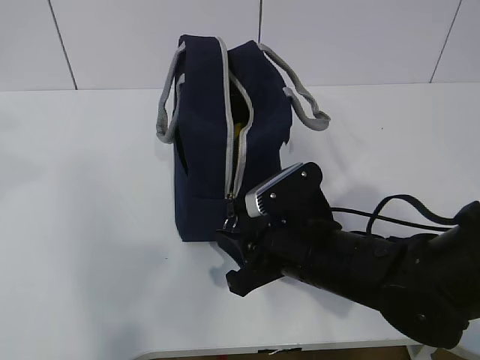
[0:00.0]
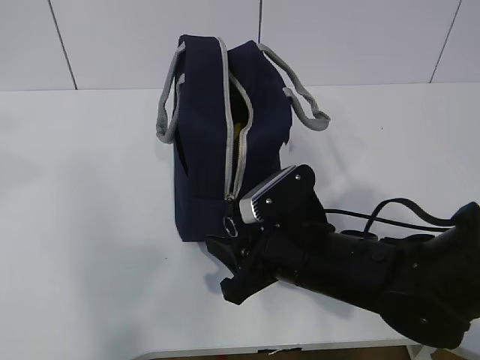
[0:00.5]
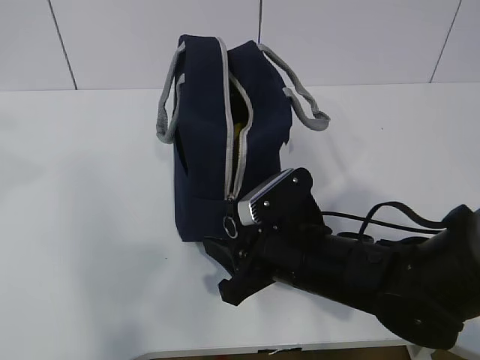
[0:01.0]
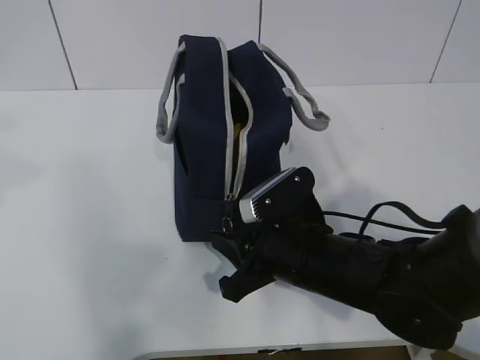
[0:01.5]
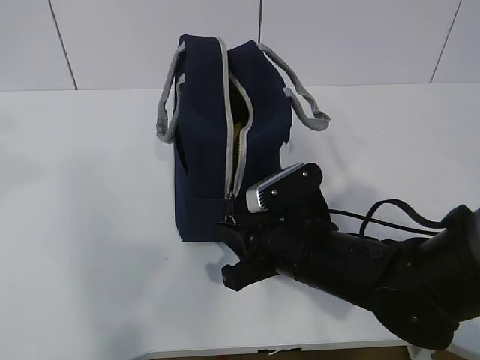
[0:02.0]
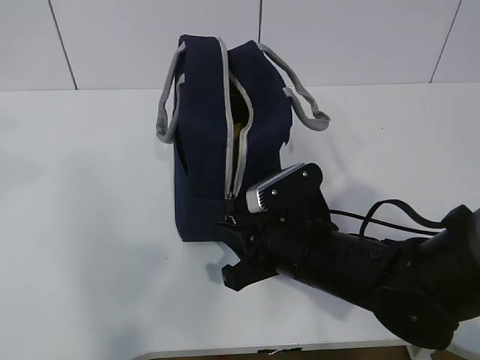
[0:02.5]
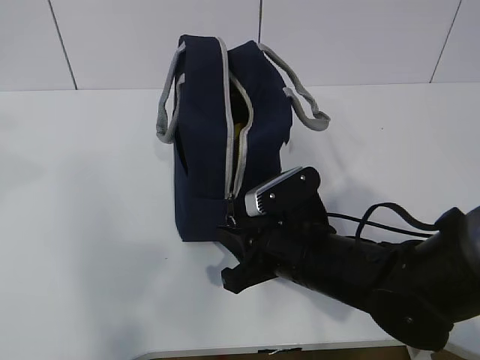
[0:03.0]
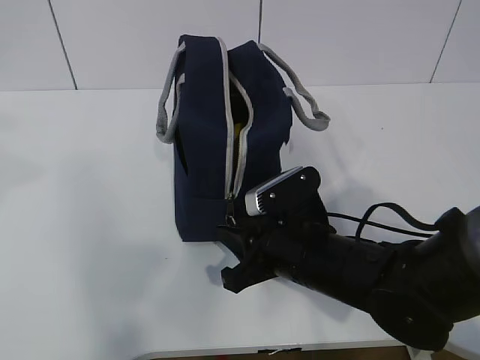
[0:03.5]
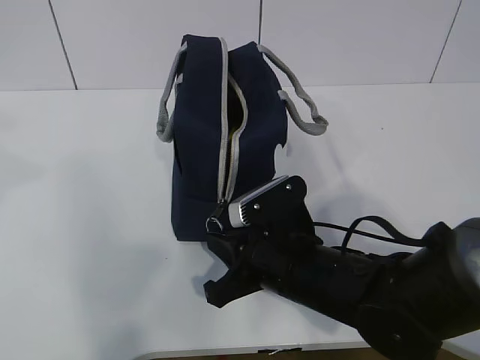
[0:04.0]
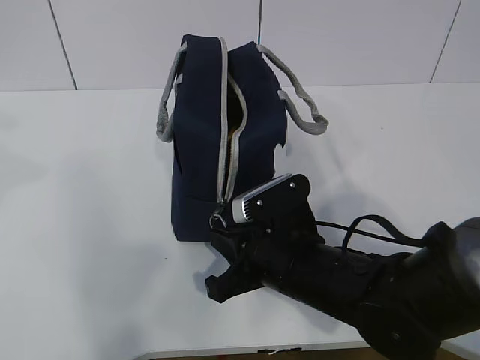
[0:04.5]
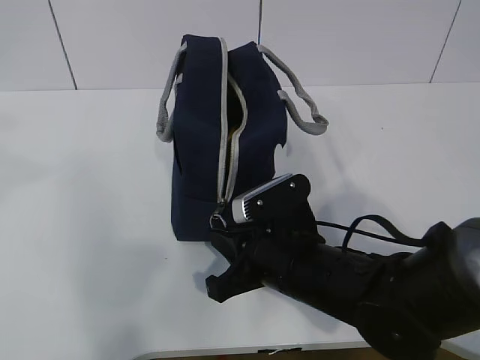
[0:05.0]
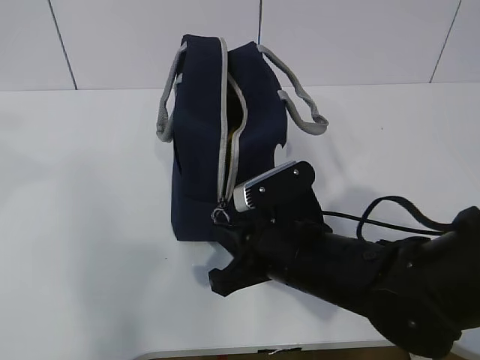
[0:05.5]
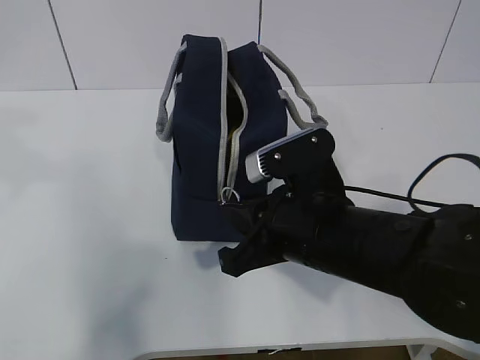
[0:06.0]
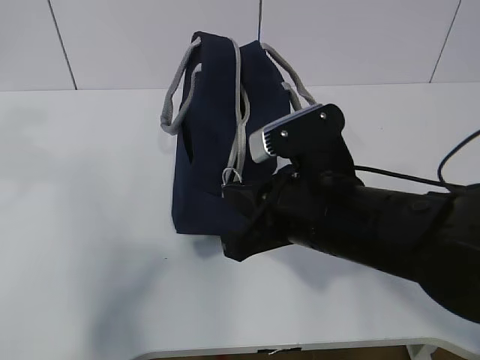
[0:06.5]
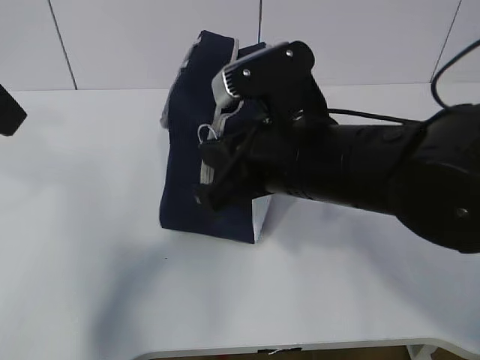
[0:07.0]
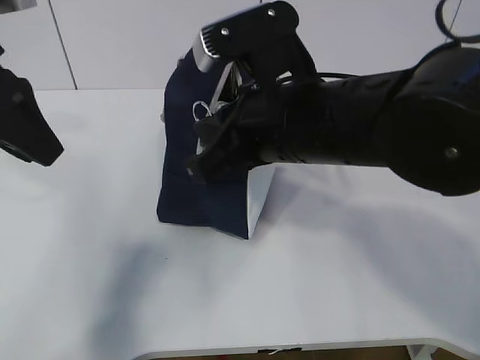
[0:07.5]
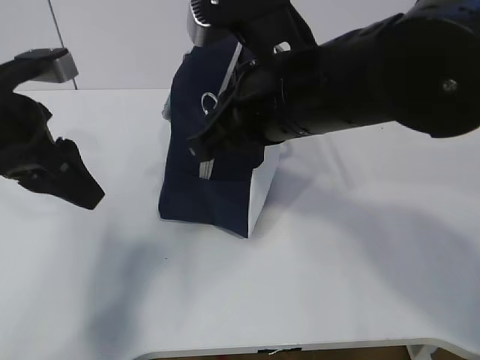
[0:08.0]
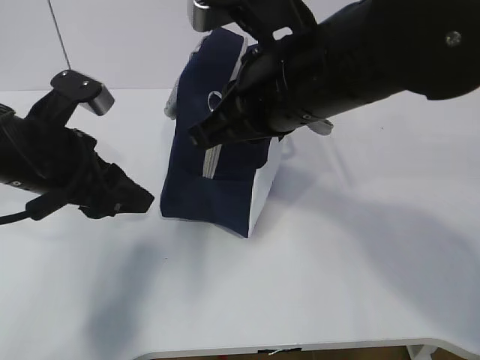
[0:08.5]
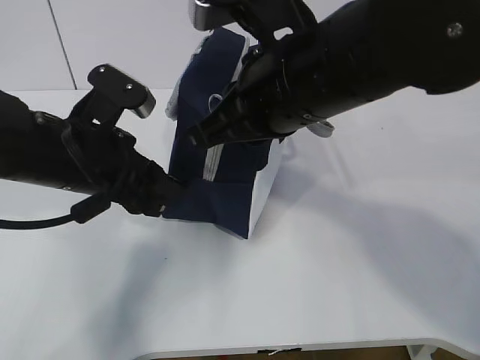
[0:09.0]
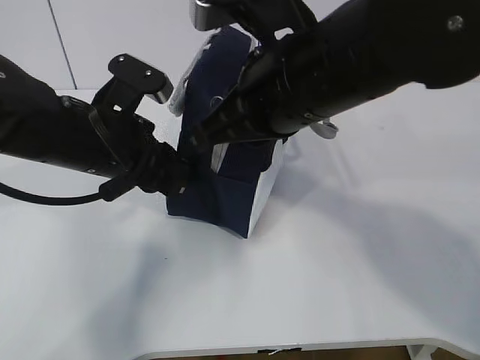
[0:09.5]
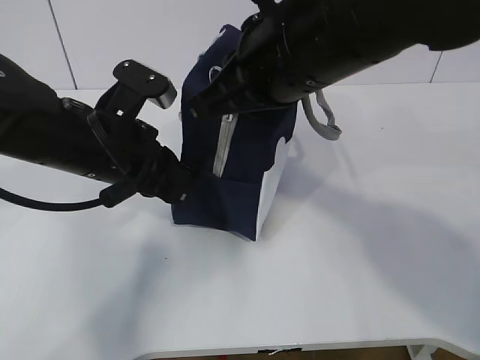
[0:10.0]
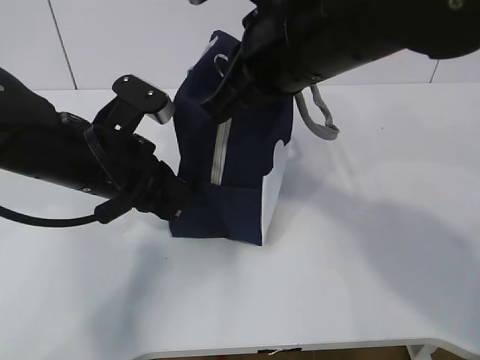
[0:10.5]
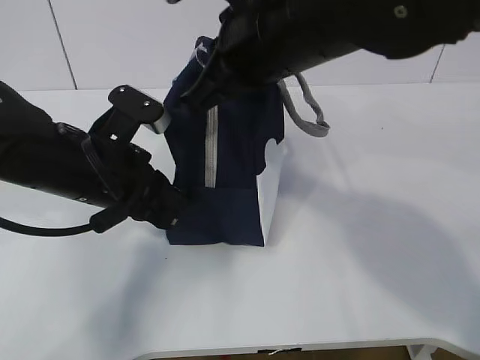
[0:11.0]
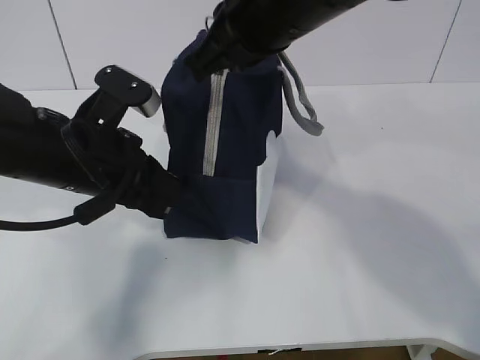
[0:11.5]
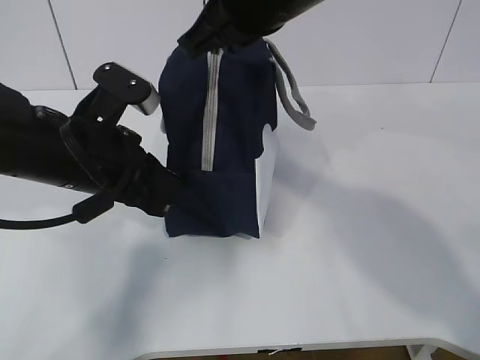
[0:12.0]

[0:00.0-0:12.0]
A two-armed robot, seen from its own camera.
0:00.0 to 0:02.0: Neither gripper changes place.
0:02.0 to 0:04.0: The right gripper closes.
0:04.0 to 0:06.0: The right gripper travels upward by approximately 5 cm.
0:06.0 to 0:08.0: The left gripper travels downward and forward by about 20 cm, while the right gripper is displaced upward by about 10 cm.
0:08.0 to 0:10.0: The left gripper moves to the right, some 10 cm, and closes.
0:10.0 to 0:12.0: The right gripper moves some 5 cm.

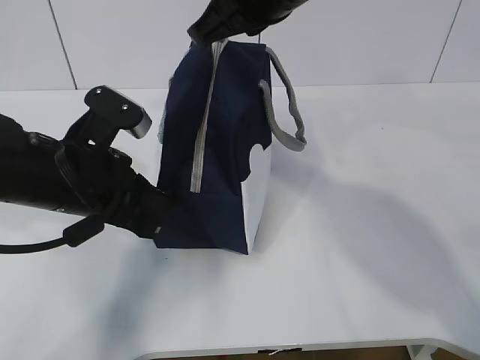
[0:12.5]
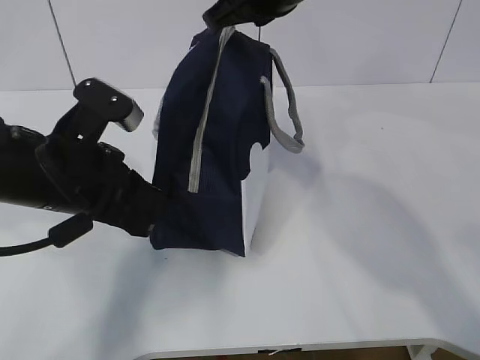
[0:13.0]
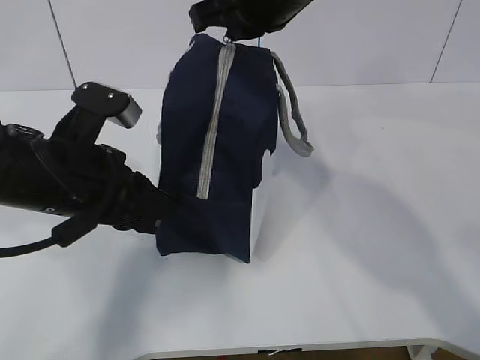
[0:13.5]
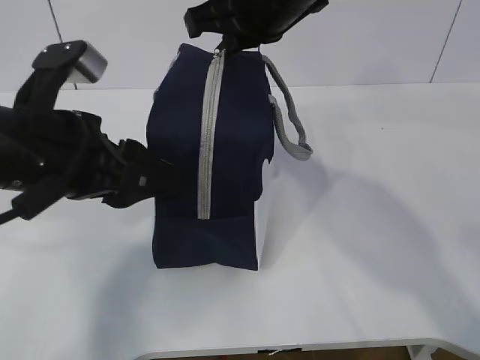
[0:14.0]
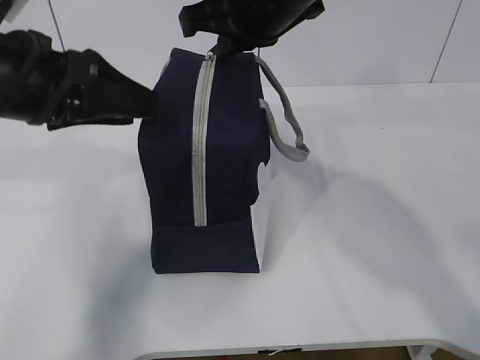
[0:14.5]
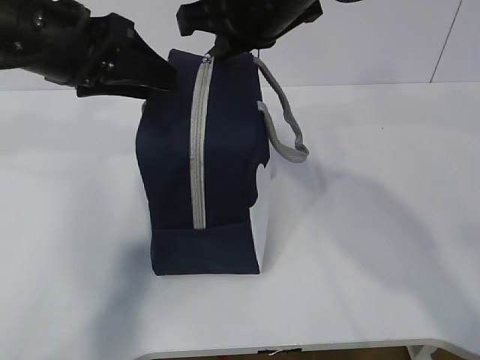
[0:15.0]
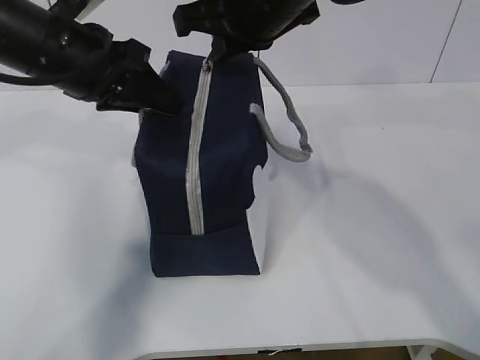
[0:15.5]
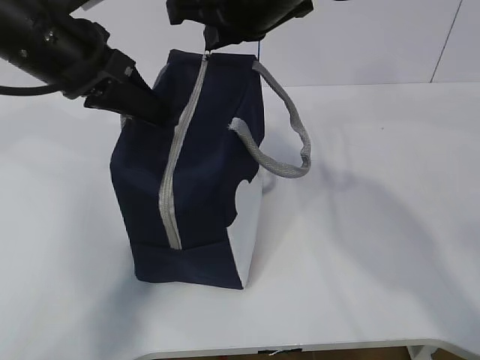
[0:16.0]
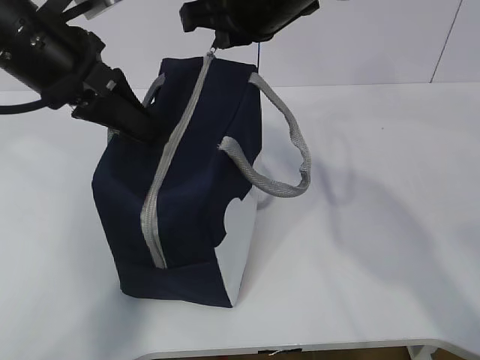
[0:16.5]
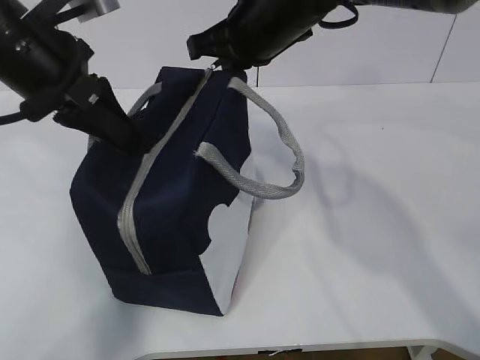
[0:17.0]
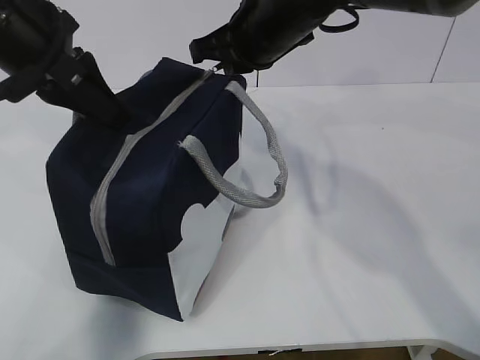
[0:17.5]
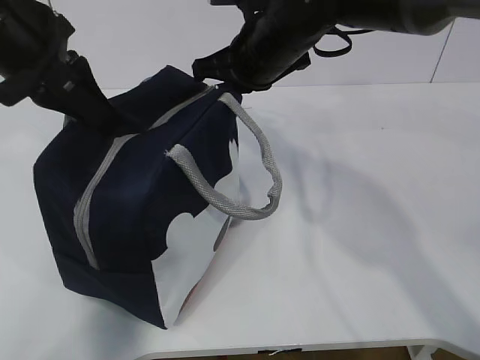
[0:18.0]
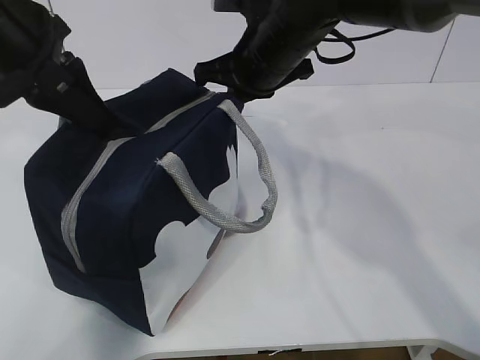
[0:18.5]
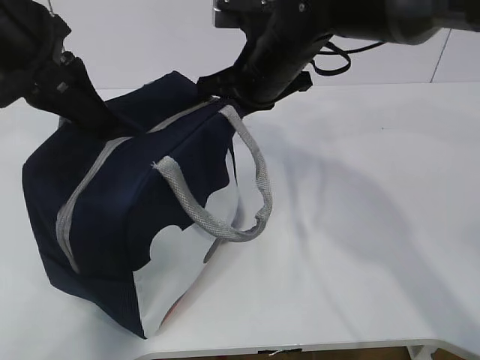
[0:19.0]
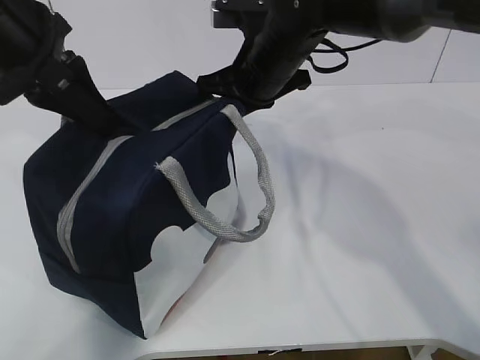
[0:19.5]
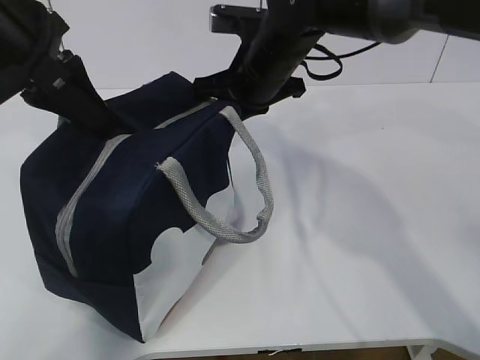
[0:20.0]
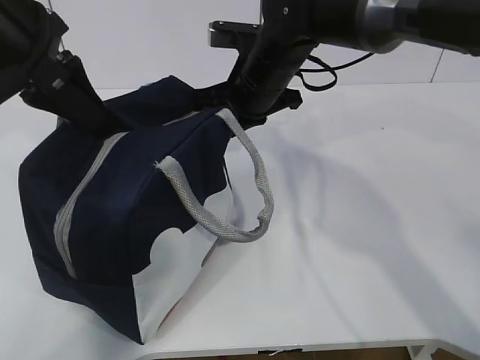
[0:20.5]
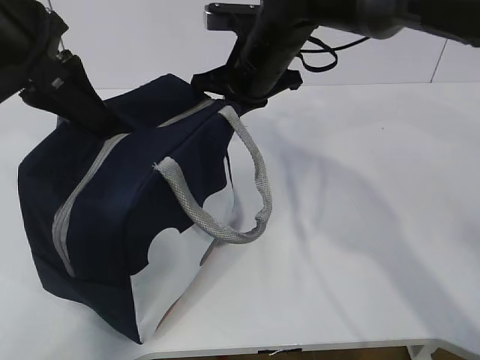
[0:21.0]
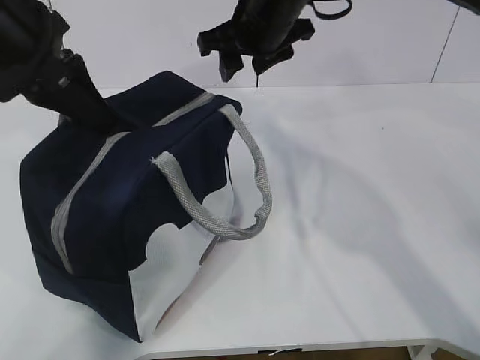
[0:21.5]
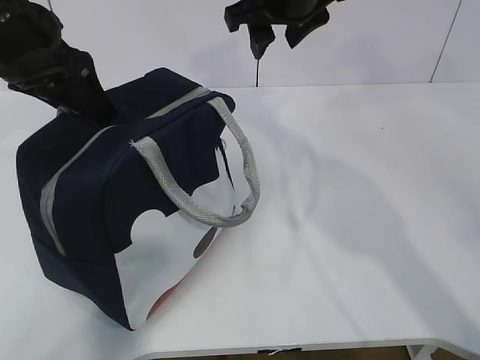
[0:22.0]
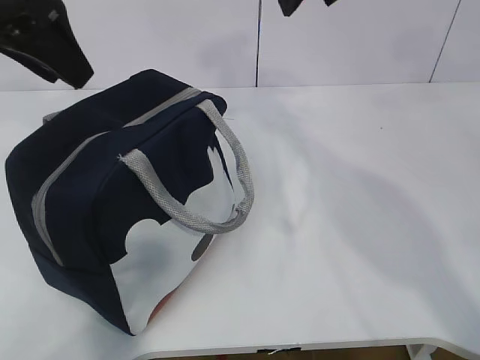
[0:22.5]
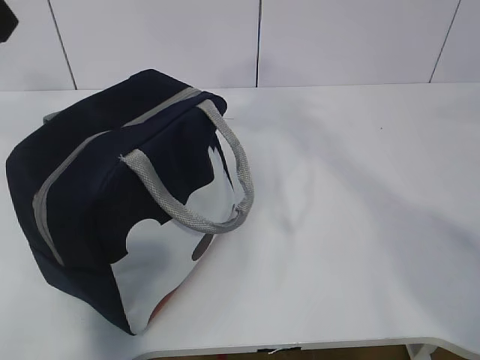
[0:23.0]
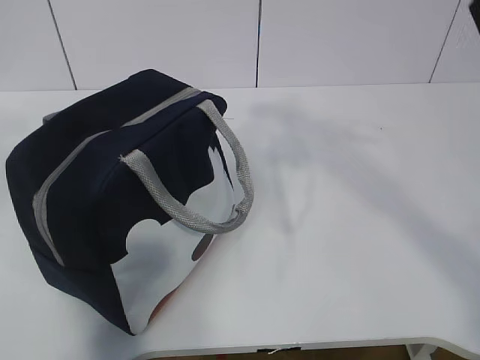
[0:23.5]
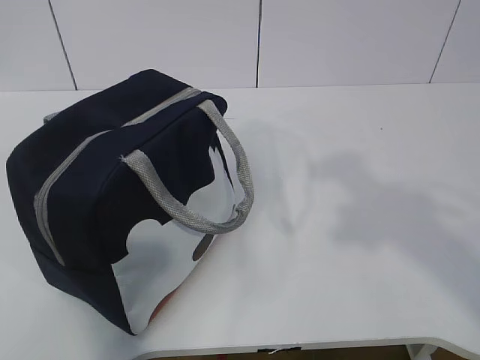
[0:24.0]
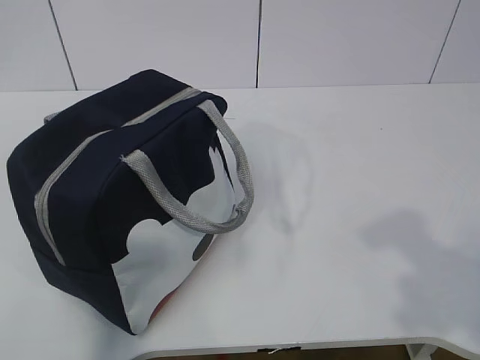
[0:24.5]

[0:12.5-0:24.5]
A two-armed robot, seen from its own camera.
Step, 0:12.5 to 0:21.5: zip up the zipper to close the bag.
0:12.5 to 0:14.5: The left gripper is displaced upward by about 10 cm, and opens.
0:14.5 to 0:16.5: The left gripper heads forward, covering about 5 cm, and closes up.
0:16.5 to 0:18.5: The right gripper moves downward, some 5 cm.
0:18.5 to 0:20.5: The grippers move only a little.
0:20.5 to 0:22.5: The left gripper opens up; the right gripper is displaced upward by some 20 cm, and opens.
0:22.5 to 0:24.5: The left gripper moves backward, roughly 35 cm, while the right gripper shifts about 35 cm backward and to the right.

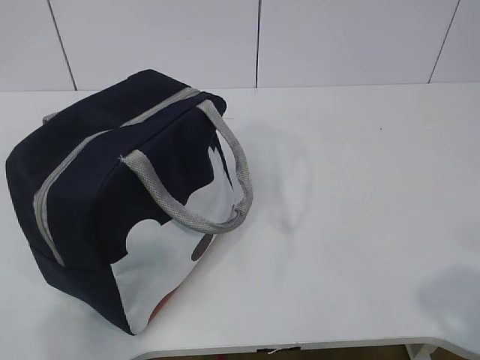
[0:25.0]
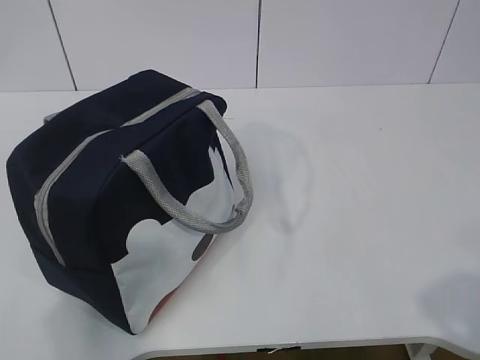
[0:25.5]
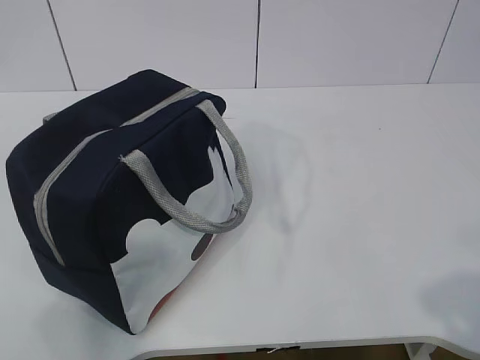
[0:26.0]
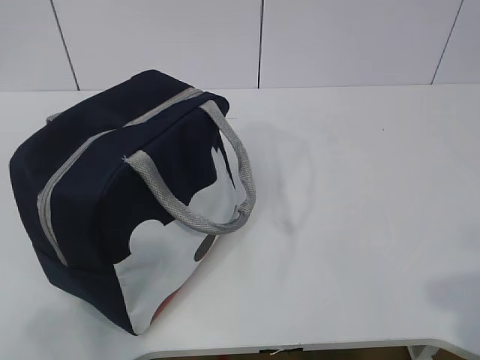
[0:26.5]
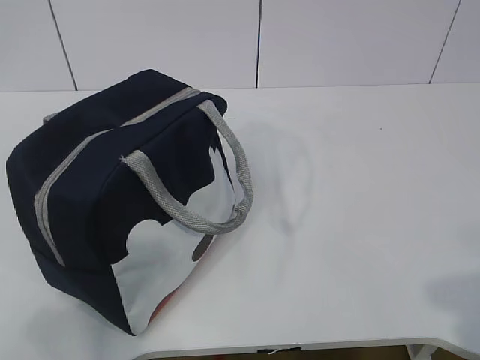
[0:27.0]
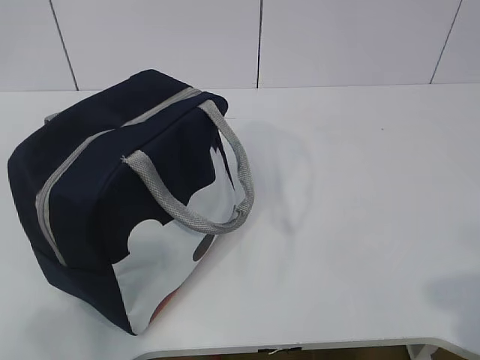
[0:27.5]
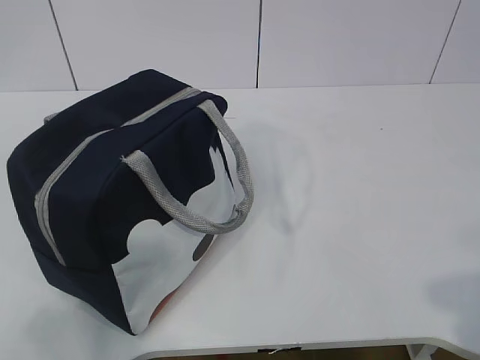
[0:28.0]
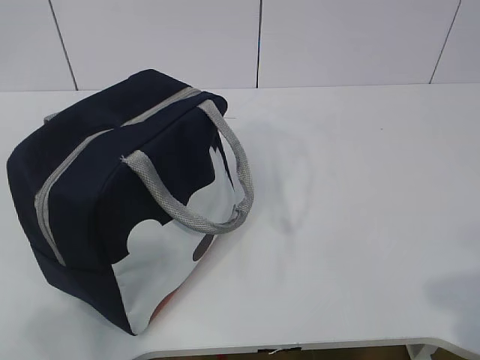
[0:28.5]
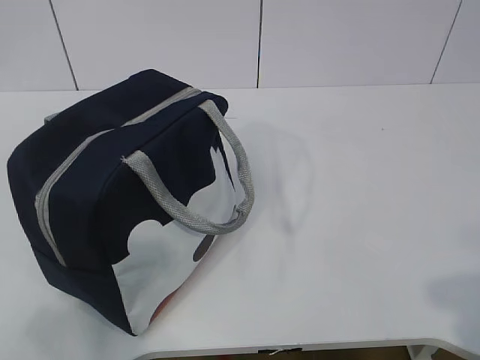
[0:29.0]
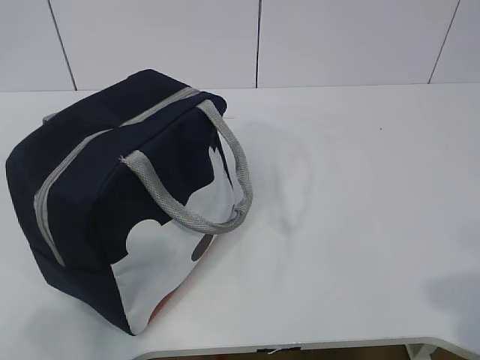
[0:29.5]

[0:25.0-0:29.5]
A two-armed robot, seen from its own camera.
0:27.0 to 0:29.5: Both grippers stay about where they are.
